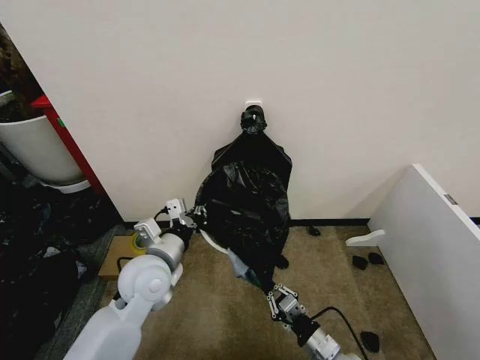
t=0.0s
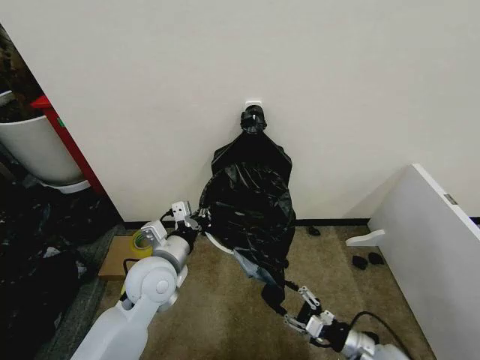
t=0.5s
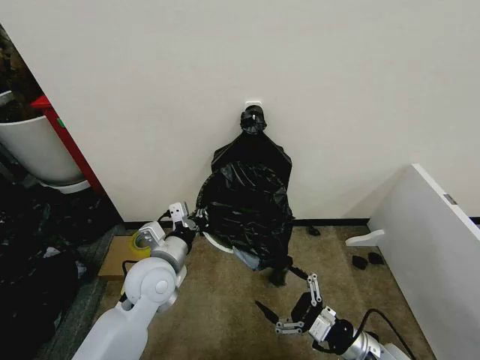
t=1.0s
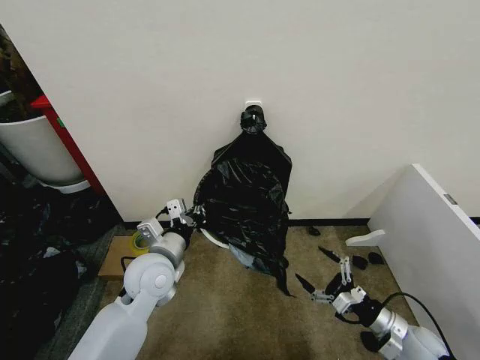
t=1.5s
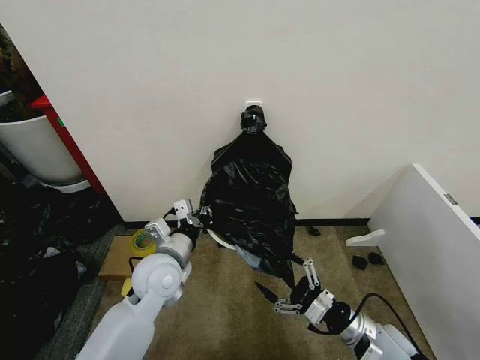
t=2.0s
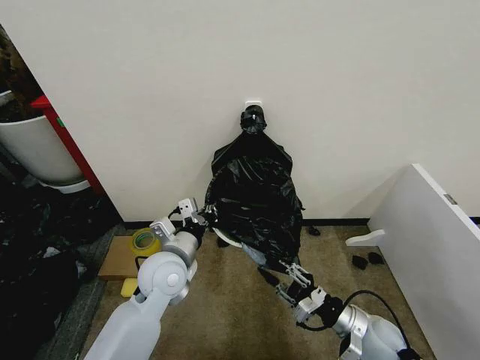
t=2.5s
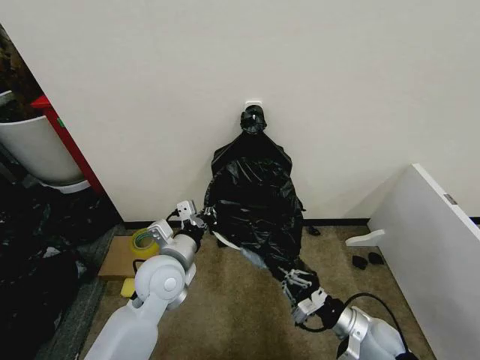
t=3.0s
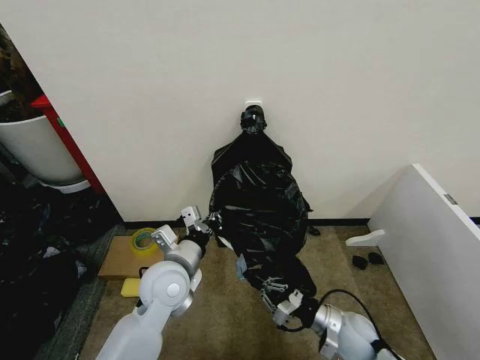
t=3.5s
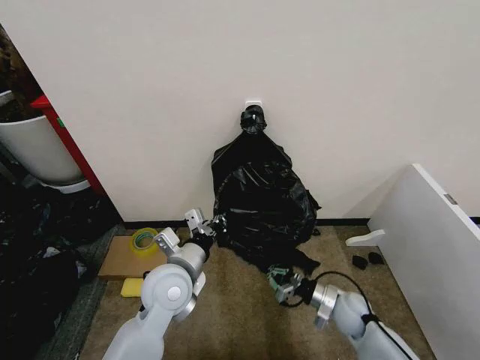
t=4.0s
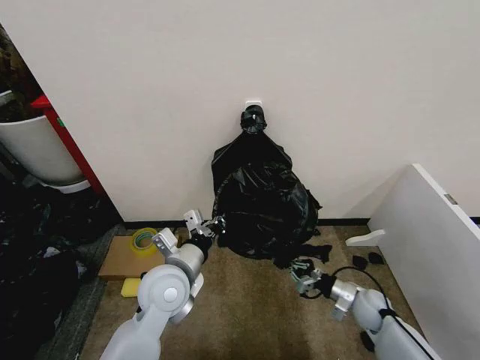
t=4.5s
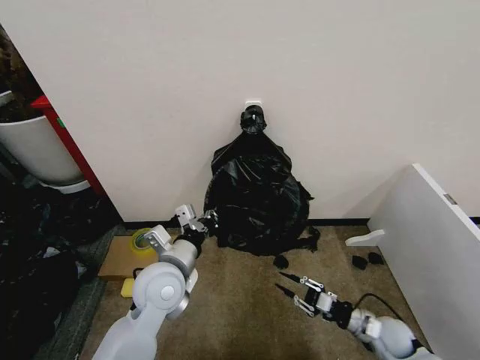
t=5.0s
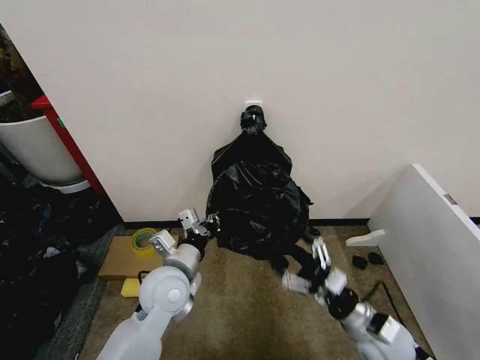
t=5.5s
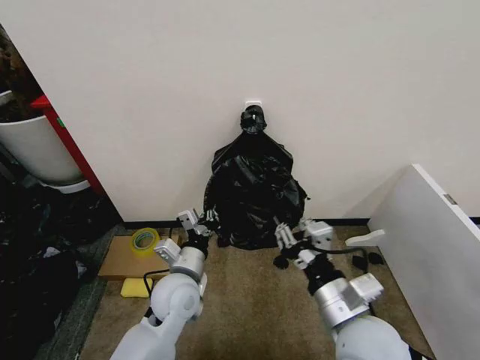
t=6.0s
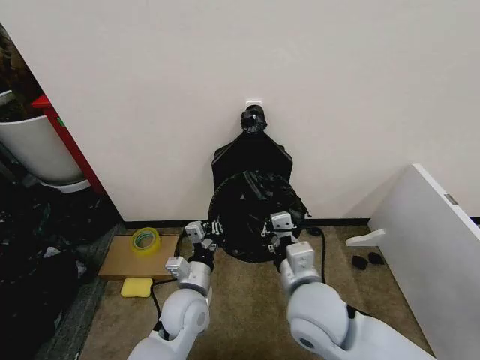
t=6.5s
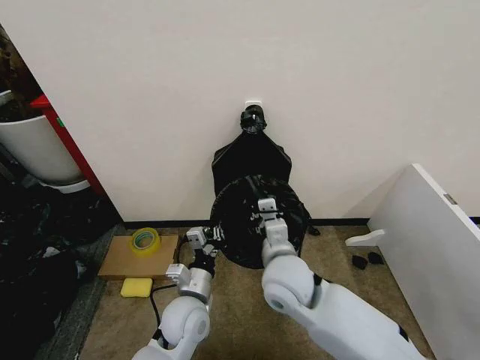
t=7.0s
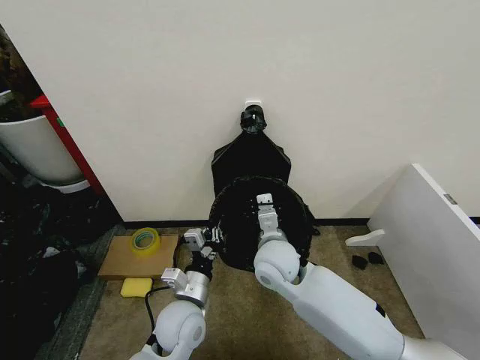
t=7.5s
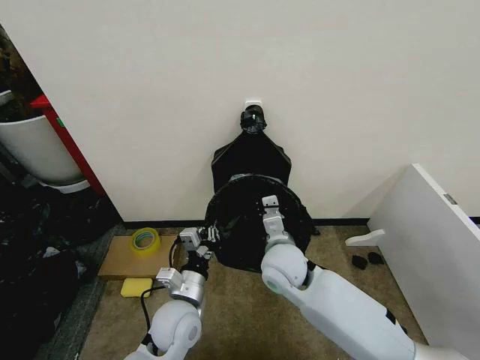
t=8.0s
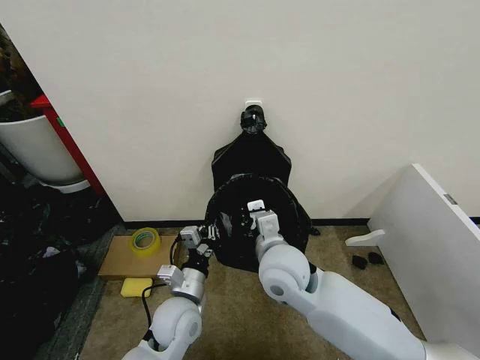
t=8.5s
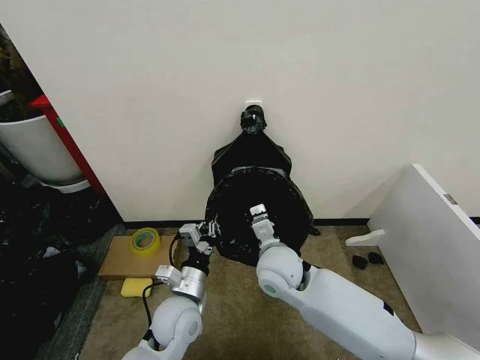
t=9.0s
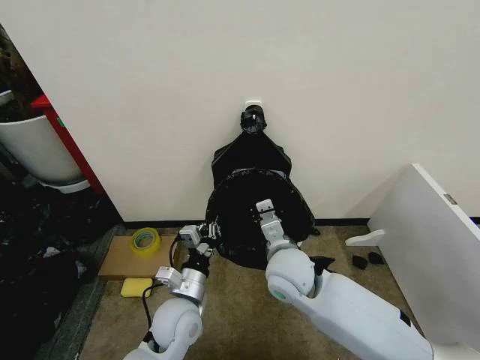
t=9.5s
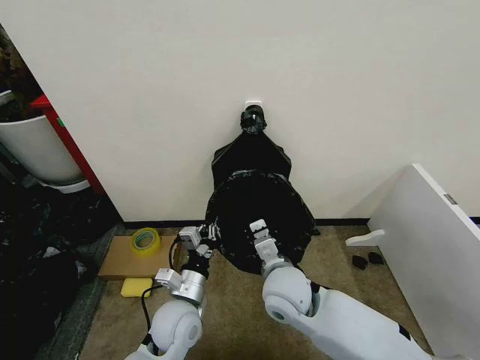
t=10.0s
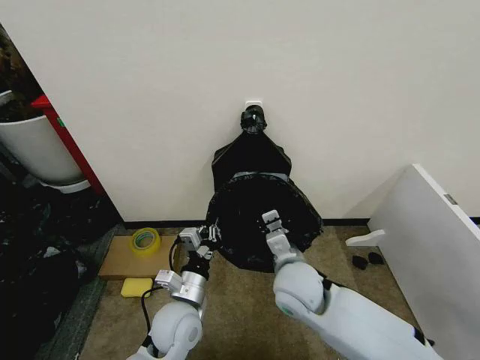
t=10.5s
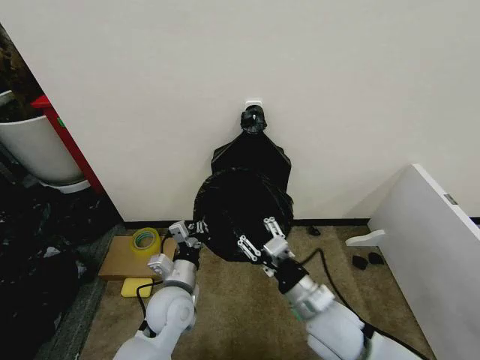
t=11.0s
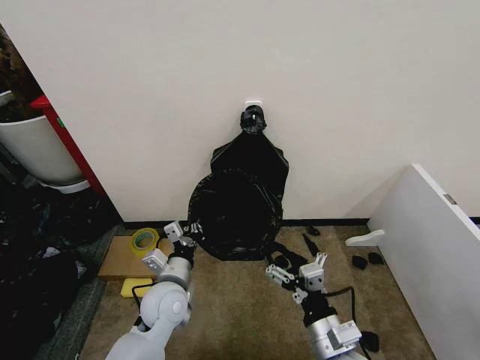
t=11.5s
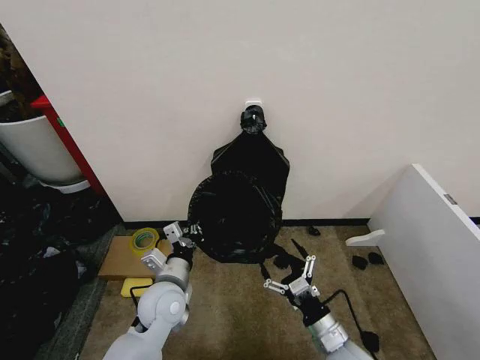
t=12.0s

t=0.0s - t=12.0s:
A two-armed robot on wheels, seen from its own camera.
Task of the whole recording: Place the garbage bag over the trash bin.
t=0.0s - t=2.0s: The right gripper shifts about 10 cm to the right and upward, and opens.
t=2.0s - t=4.0s: The right gripper heads forward and downward, covering approximately 10 cm, and closes up.
t=4.0s - t=6.0s: The right gripper heads upward, backward and to the left, covering approximately 30 cm, and opens and closes again.
t=6.0s - t=8.0s: The left gripper changes place by about 5 cm, while the right gripper travels forward and to the left by some 20 cm.
t=8.0s - t=10.0s: The right gripper travels backward by about 5 cm.
t=10.0s - t=12.0s: The right gripper is displaced to the right, downward and backward by roughly 20 cm, and opens its fingers; the left gripper changes place by about 5 cm.

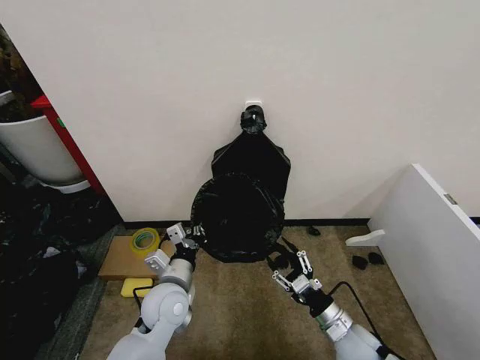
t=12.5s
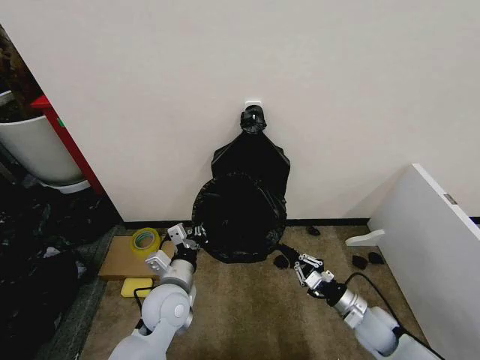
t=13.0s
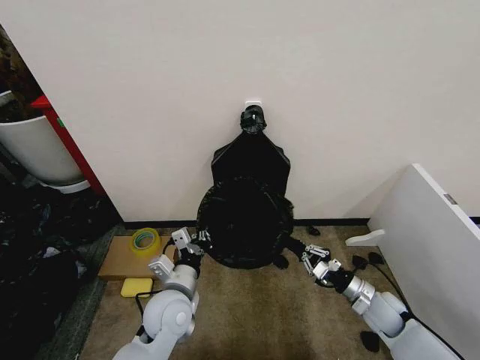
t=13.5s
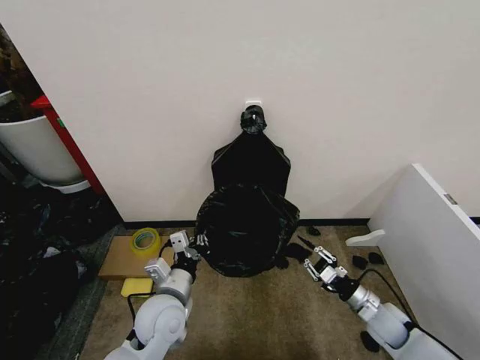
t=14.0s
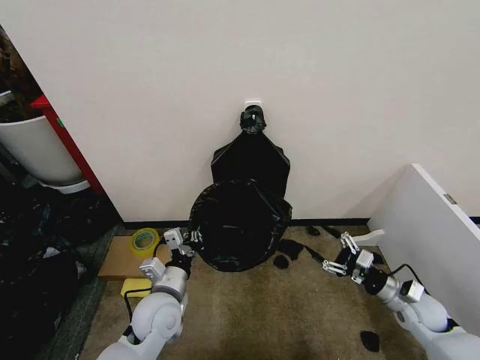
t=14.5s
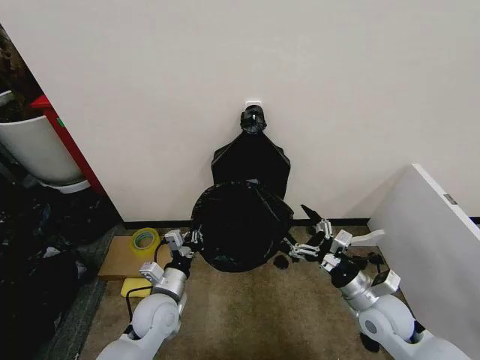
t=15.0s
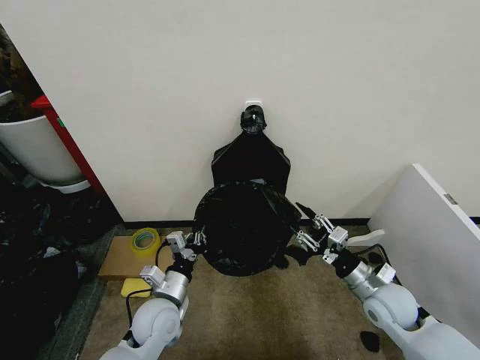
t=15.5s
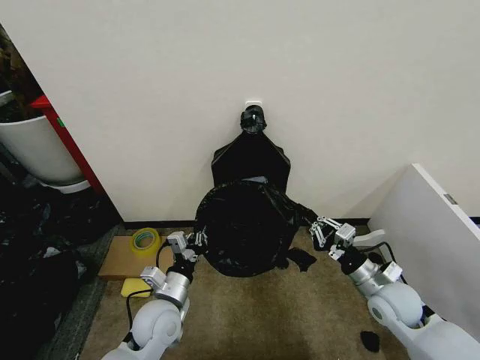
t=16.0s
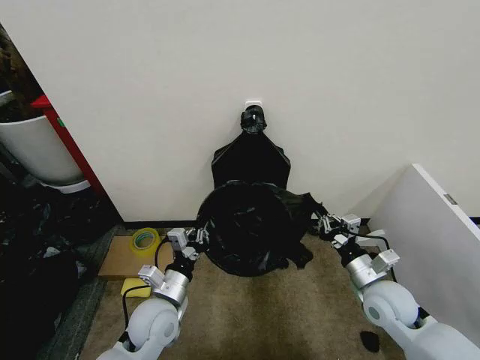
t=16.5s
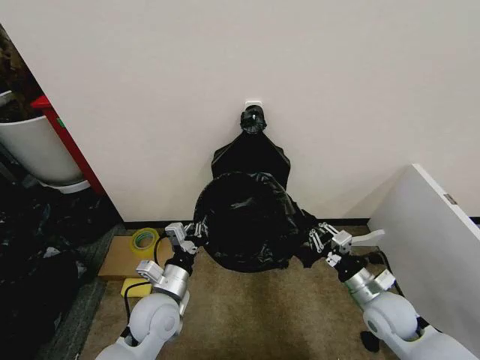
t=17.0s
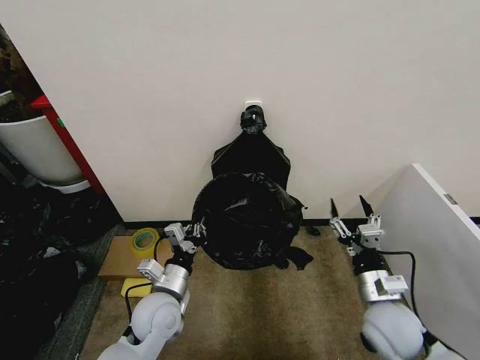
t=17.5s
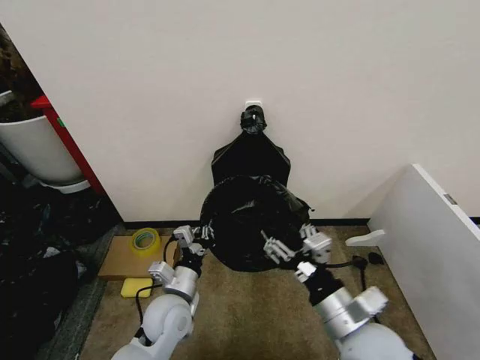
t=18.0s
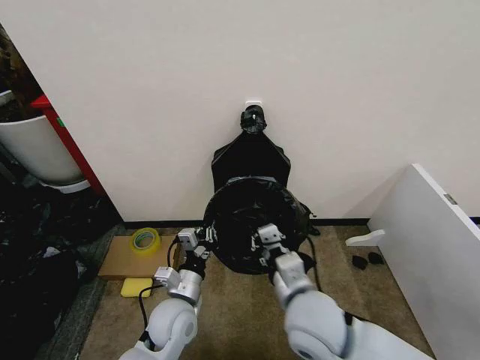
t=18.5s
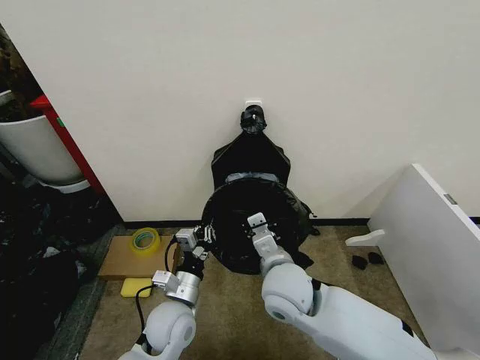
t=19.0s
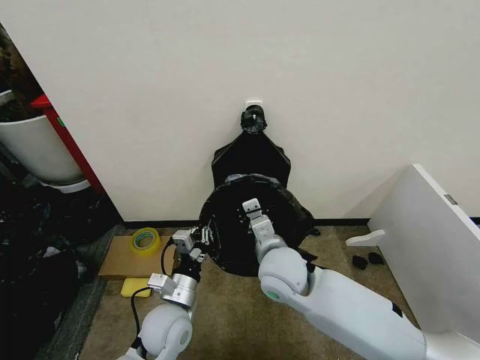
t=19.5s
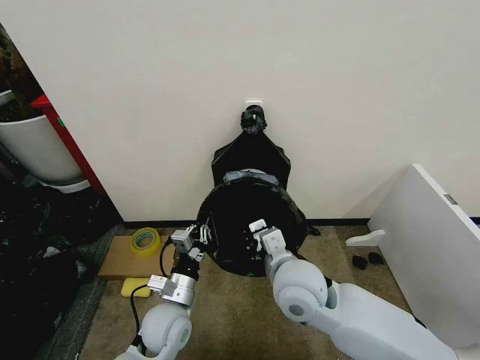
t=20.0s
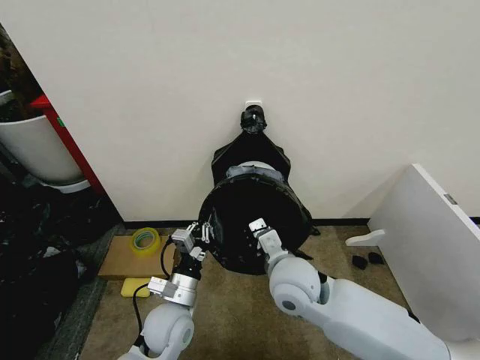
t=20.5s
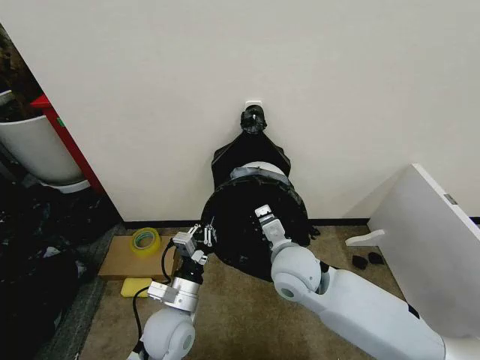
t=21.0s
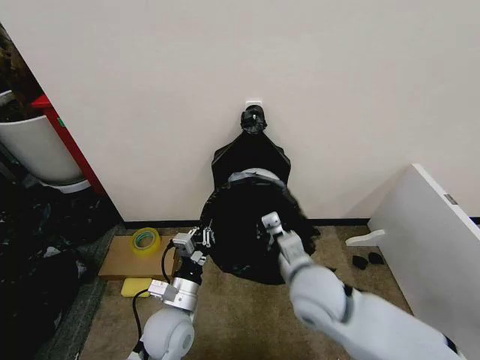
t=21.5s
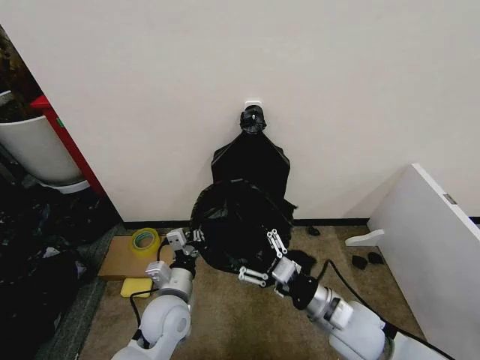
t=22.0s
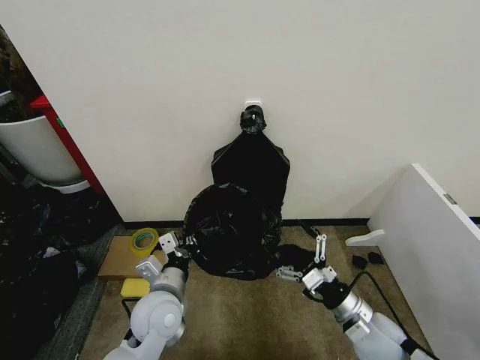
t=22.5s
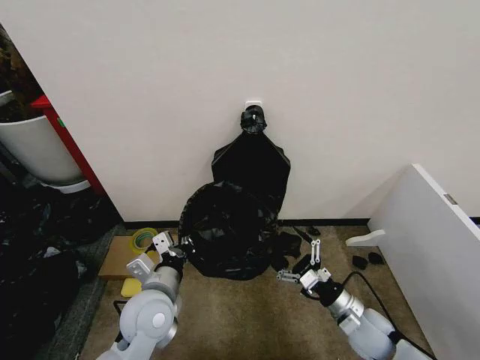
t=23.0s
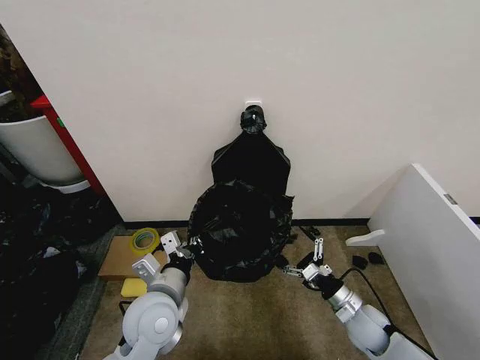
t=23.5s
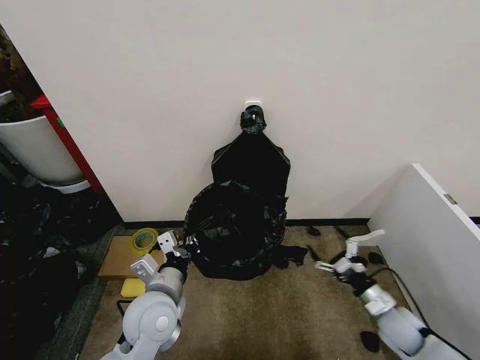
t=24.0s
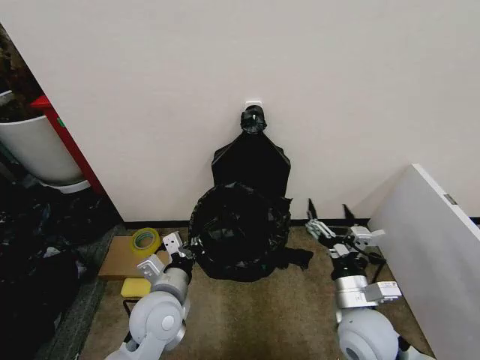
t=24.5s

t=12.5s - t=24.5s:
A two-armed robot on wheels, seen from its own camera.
Task of the whole recording: Place the garbage bag over the trash bin.
t=12.5s - t=14.5s: The right gripper goes roughly 15 cm to the right, and closes, then opens again.
t=14.5s - t=16.5s: The right gripper shifts about 15 cm to the left and upward, and closes up.
t=16.5s - t=18.5s: The right gripper moves to the left and upward, about 20 cm, and opens and closes again.
t=18.5s - t=20.5s: The right gripper is displaced forward by roughly 5 cm.
t=20.5s - t=22.5s: The right gripper is displaced to the right and downward by roughly 20 cm, and opens its fingers.
t=22.5s - t=24.5s: The right gripper goes to the right and returns, about 10 cm each way.

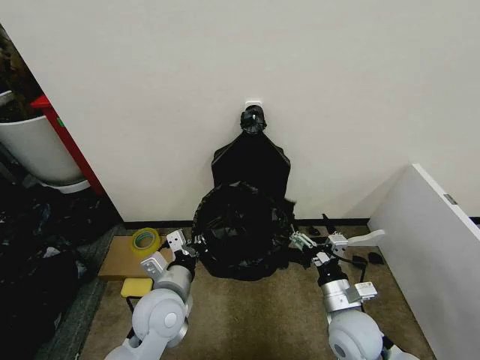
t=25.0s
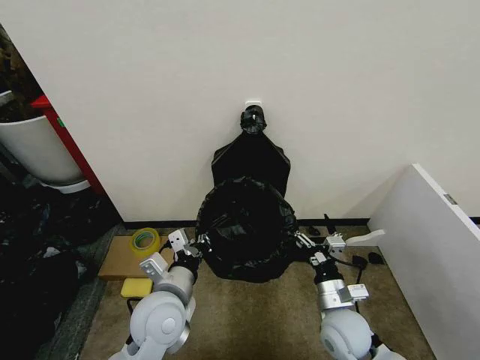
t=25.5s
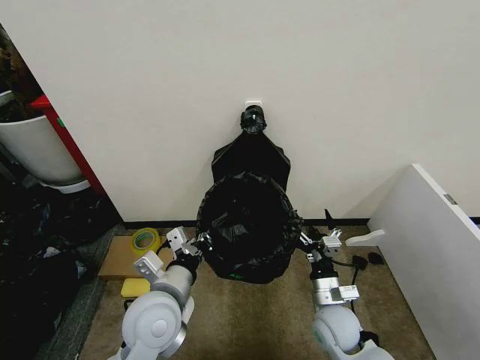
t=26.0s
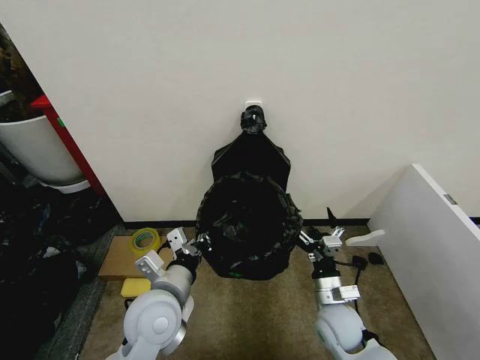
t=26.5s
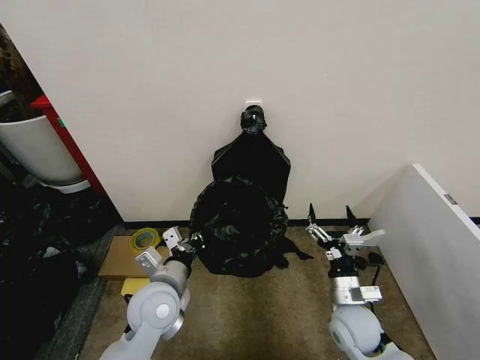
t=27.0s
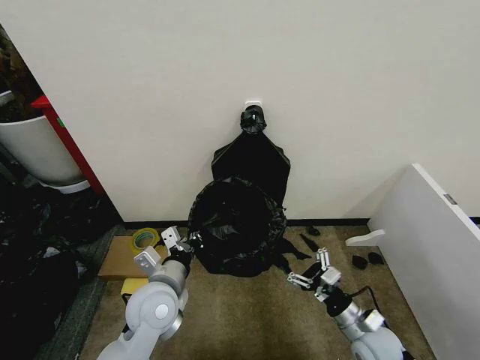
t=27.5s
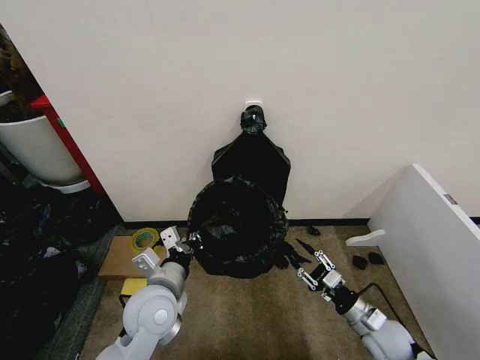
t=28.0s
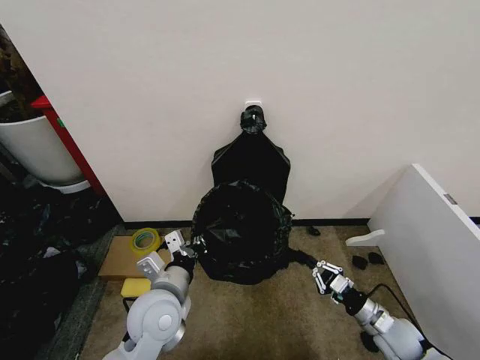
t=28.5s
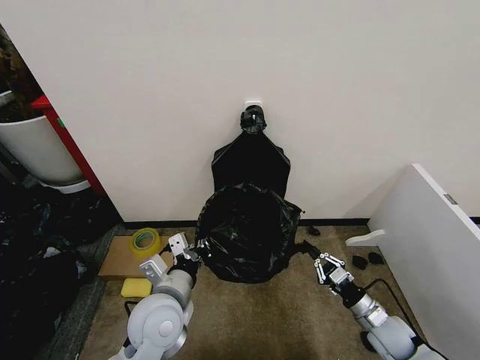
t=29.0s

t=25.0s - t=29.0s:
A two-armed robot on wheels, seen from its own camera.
Task of the whole recording: Place the garbage bag over the trash bin.
t=27.0s - t=29.0s: The right gripper shifts about 15 cm to the right and downward, and closes.
